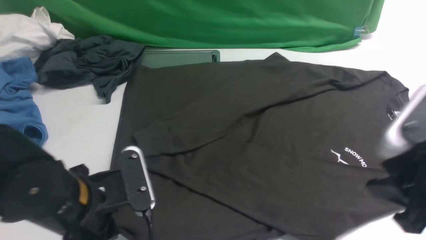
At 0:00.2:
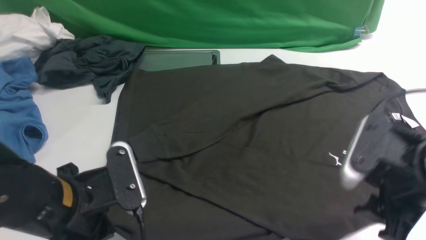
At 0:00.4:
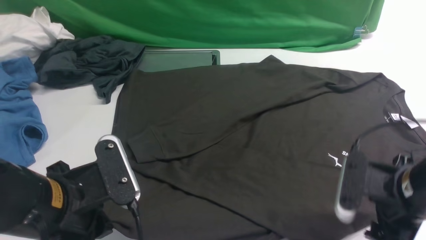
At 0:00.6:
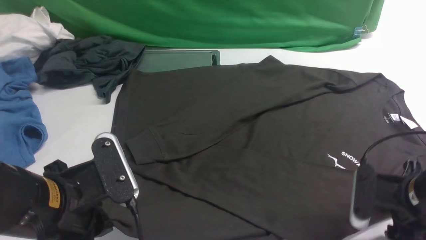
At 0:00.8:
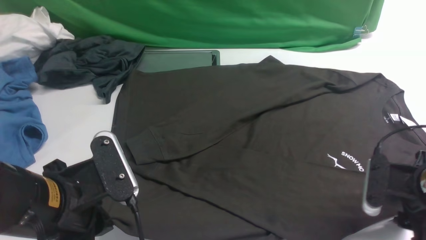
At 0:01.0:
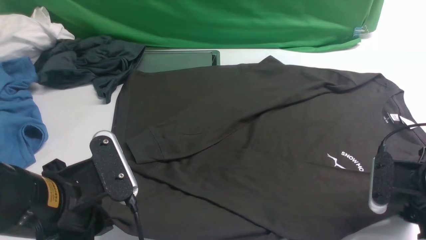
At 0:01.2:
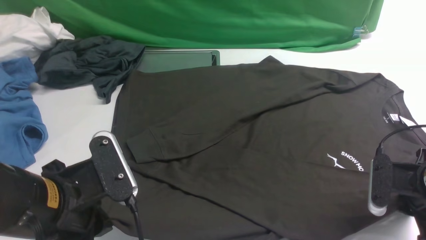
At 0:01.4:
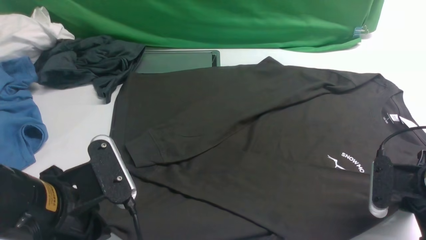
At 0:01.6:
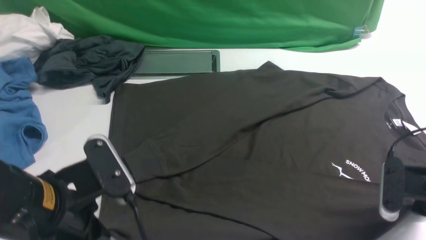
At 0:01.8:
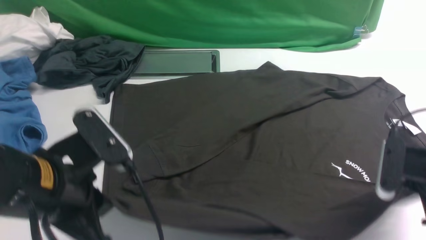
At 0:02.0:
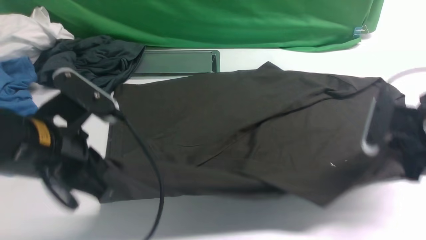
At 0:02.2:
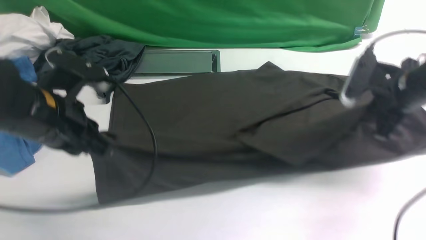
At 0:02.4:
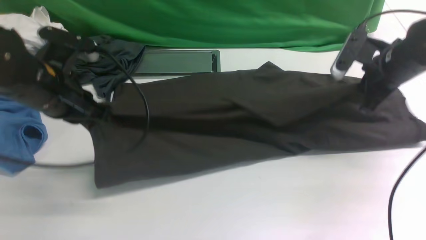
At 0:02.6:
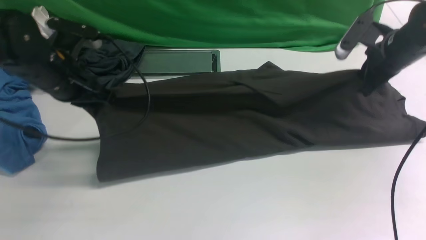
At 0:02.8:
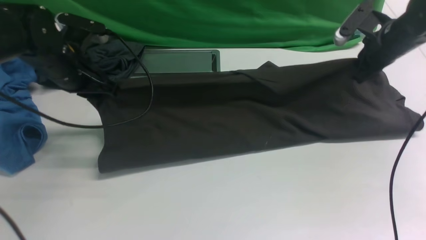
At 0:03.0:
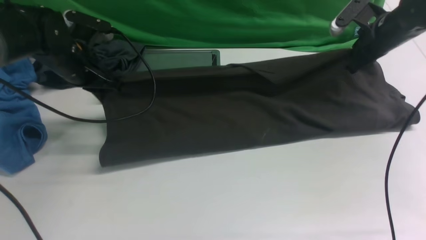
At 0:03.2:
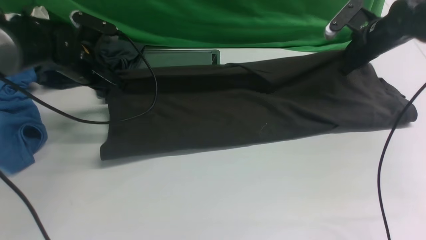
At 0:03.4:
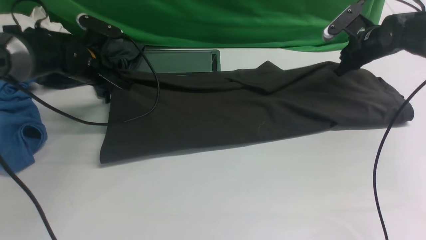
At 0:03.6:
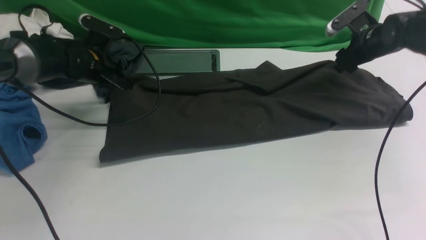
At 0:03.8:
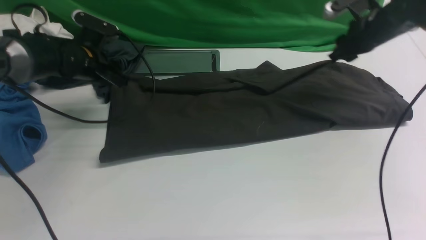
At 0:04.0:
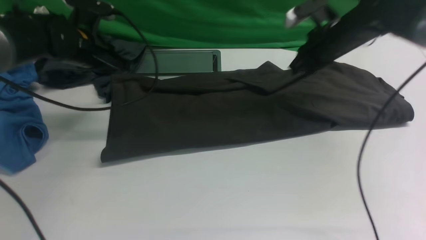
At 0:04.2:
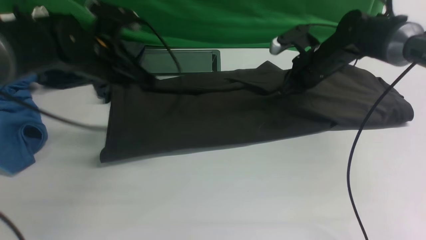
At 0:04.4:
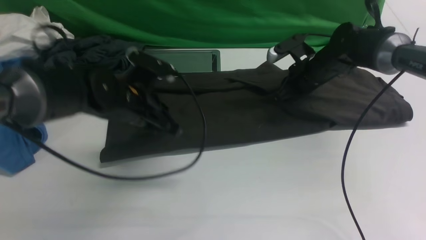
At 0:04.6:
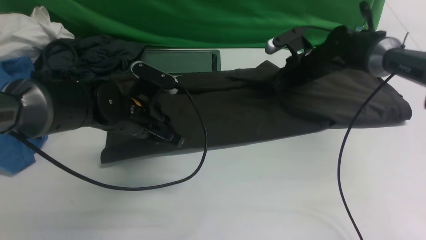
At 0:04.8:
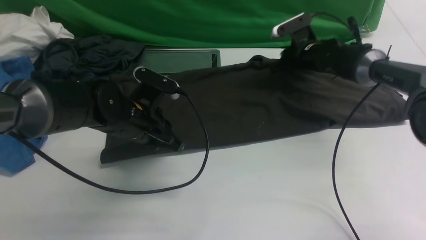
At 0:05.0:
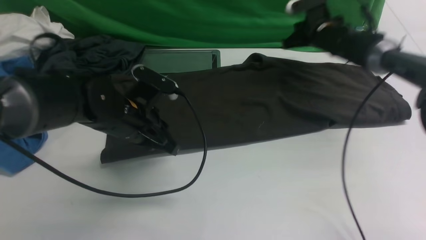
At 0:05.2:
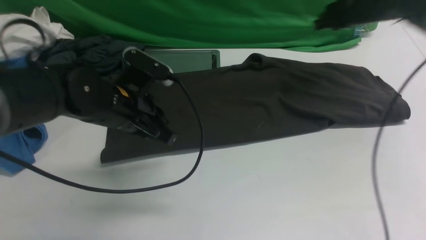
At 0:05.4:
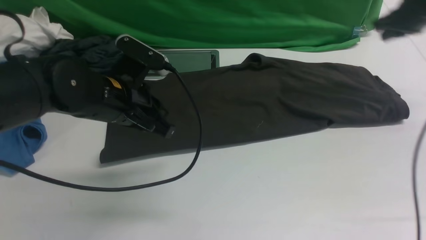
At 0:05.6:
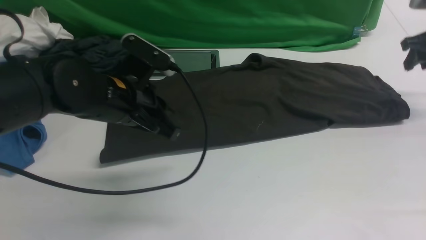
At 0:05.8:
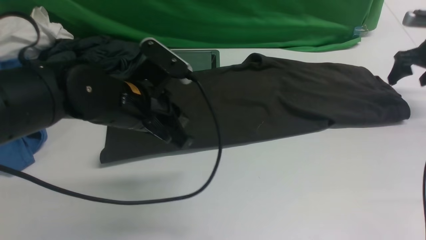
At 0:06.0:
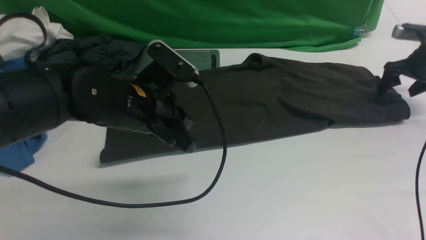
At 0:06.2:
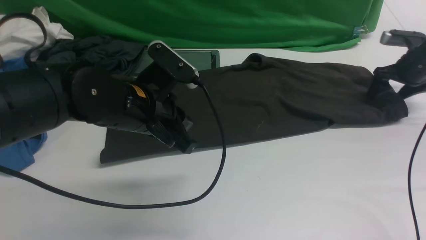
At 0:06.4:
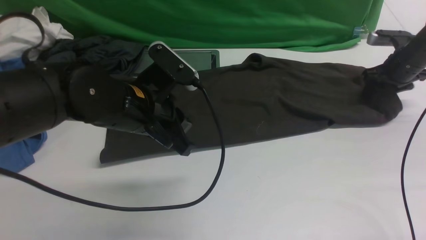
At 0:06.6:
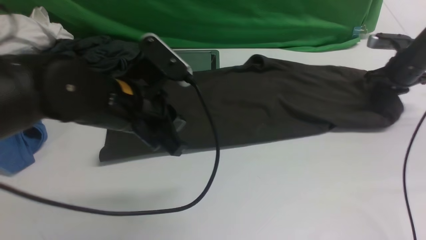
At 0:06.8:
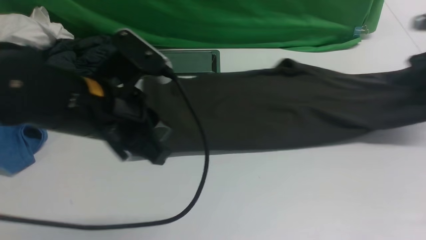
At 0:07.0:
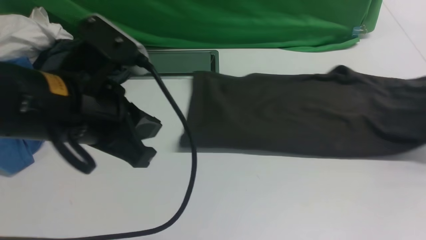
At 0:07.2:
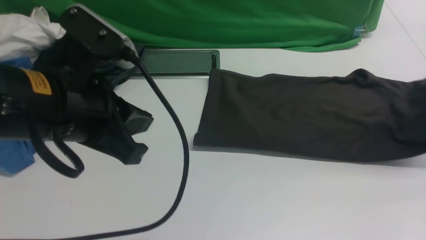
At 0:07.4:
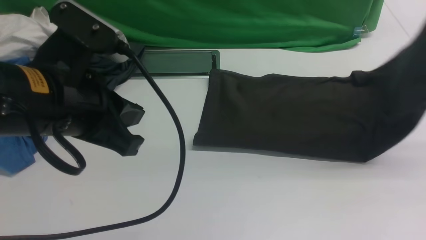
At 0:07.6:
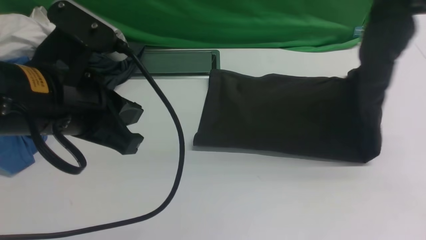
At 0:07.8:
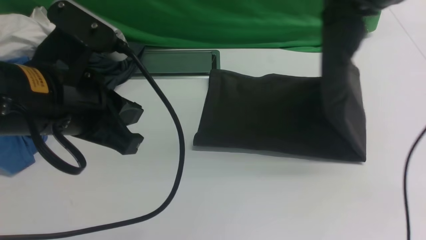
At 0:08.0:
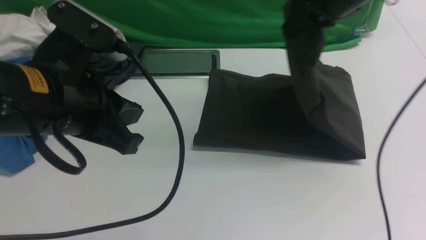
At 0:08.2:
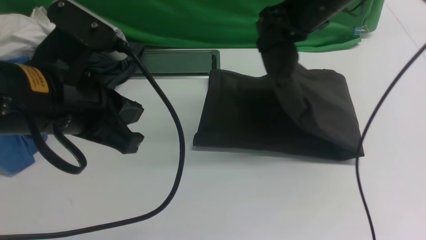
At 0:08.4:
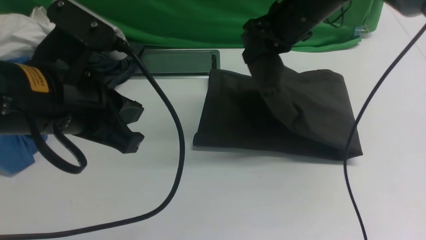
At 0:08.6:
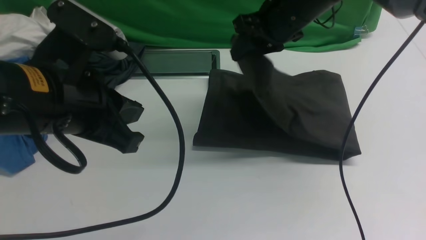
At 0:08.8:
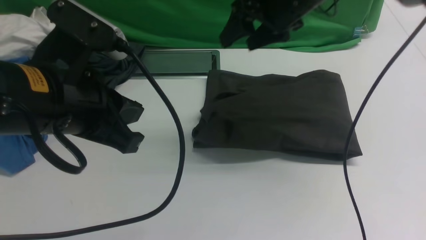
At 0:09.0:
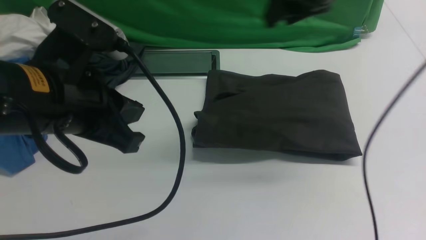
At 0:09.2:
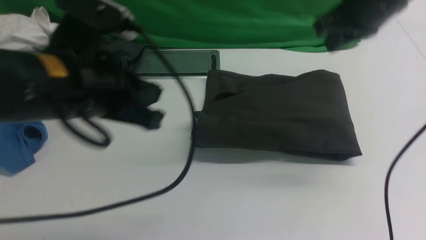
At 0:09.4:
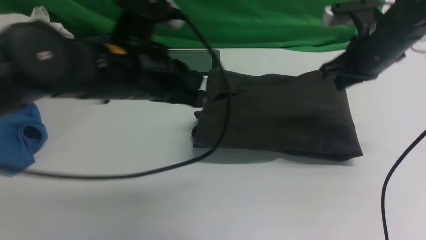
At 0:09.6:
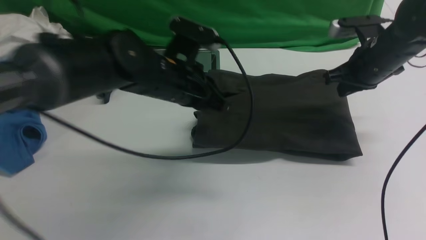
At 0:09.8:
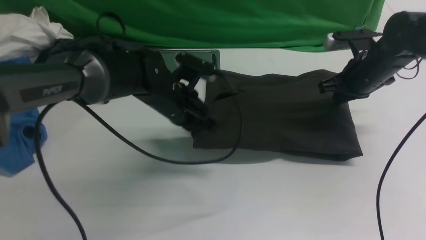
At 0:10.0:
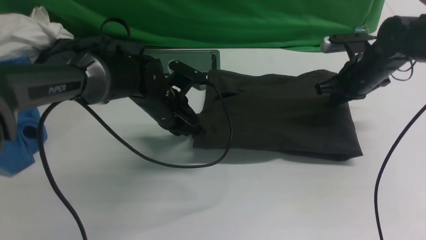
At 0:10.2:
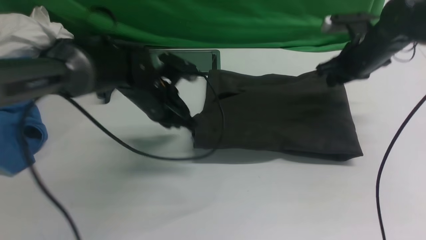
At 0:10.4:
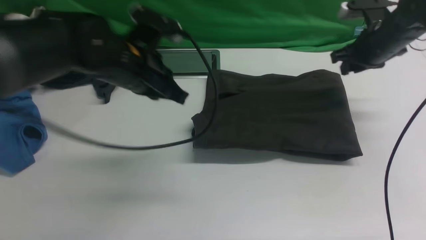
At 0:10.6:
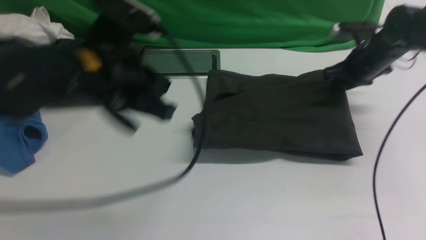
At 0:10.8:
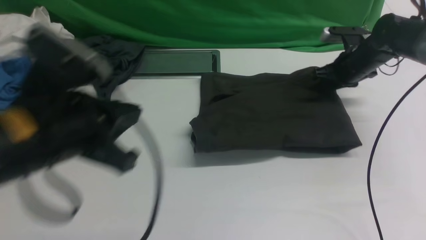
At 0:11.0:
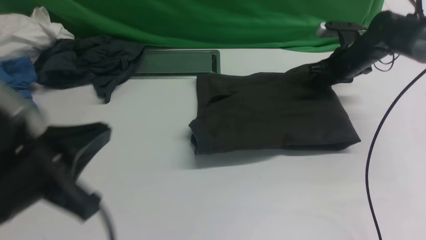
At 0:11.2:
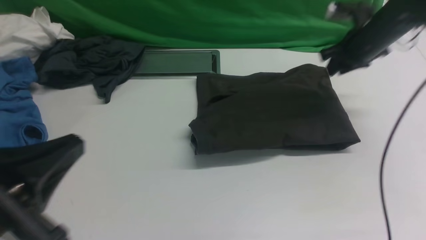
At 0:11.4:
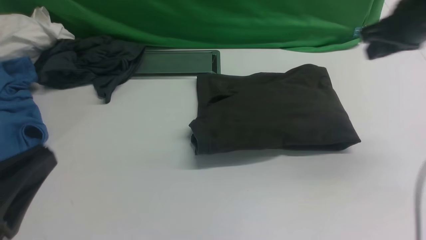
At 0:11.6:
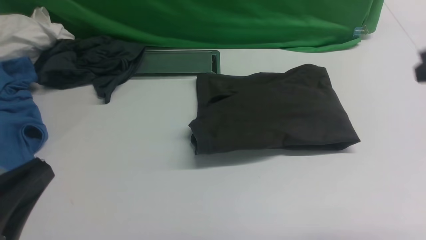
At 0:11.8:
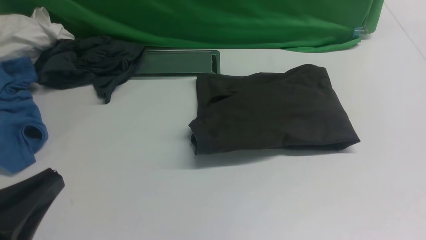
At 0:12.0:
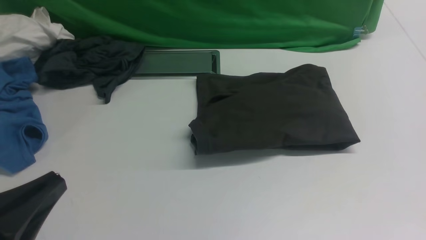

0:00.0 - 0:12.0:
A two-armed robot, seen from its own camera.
Step, 0:01.8 - 0:05.0: use both arms to drag the lower edge of the fabric forward and fold it over the upper edge.
Step, 0:05.4 - 0:06.6: use the right arm to clamp the right edge of the fabric.
Step, 0:06.8 - 0:08.8: use the right arm to drag the right edge of the fabric to the left and folds it over the left edge.
0:00.0 - 0:01.6: The right gripper moves downward, to the right and forward, about 15 cm, and closes up.
0:01.6 - 0:03.0: The grippers both shift forward by approximately 25 cm.
0:03.0 - 0:04.4: The right gripper heads to the left and downward, covering some 15 cm, and opens, then closes again, while the left gripper travels to the right and backward by roughly 10 cm, and opens, then closes once more.
0:04.4 - 0:06.0: The right gripper shifts approximately 20 cm to the right, and opens up. The left gripper travels backward by some 5 cm.
0:06.0 - 0:07.6: The left gripper is displaced upward and backward by some 15 cm; the right gripper goes about 25 cm upward, to the left and backward, and closes.
0:07.6 - 0:09.0: The right gripper goes some 10 cm to the left, and opens its fingers.
0:09.0 - 0:10.4: The right gripper moves downward, to the right and forward, about 20 cm, and closes, then reopens. Meanwhile the left gripper is displaced forward and downward by roughly 15 cm.
0:10.4 - 0:12.0: Both grippers move backward, some 30 cm. The right gripper closes.

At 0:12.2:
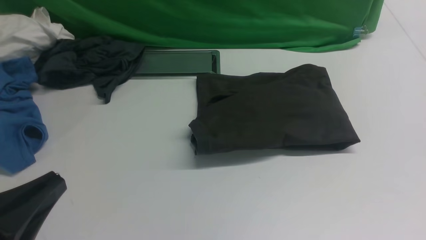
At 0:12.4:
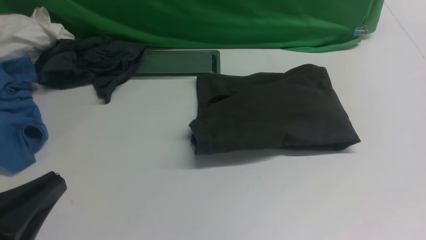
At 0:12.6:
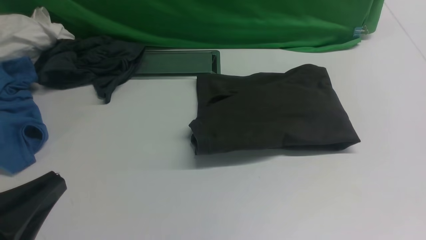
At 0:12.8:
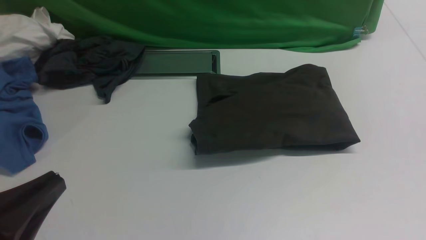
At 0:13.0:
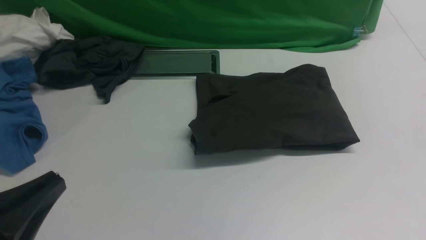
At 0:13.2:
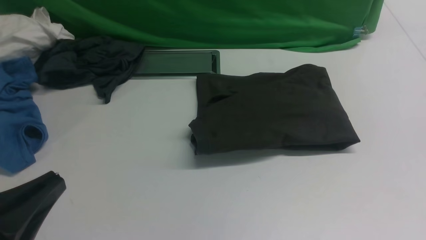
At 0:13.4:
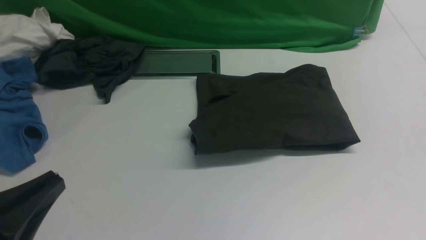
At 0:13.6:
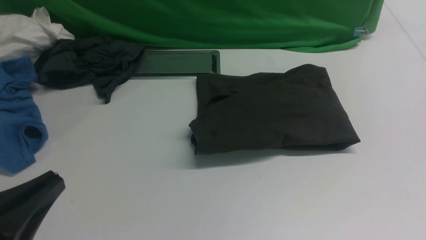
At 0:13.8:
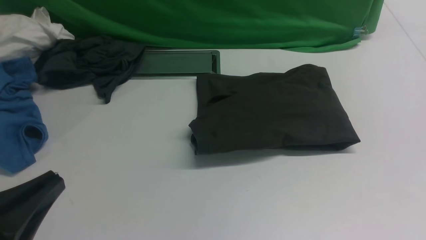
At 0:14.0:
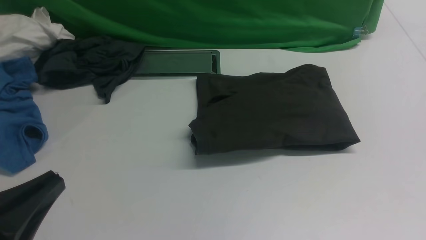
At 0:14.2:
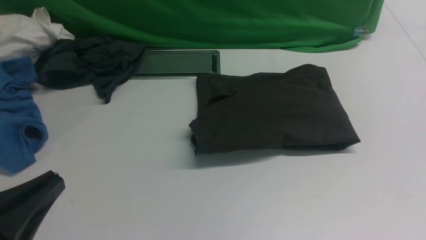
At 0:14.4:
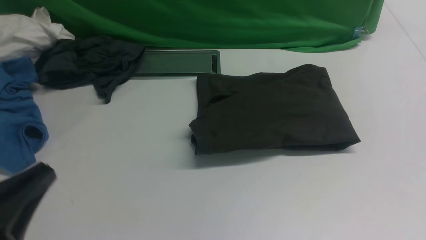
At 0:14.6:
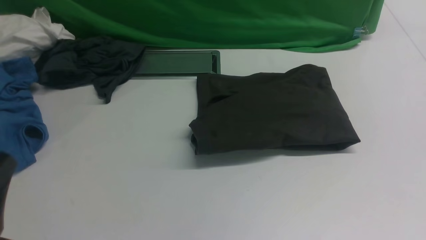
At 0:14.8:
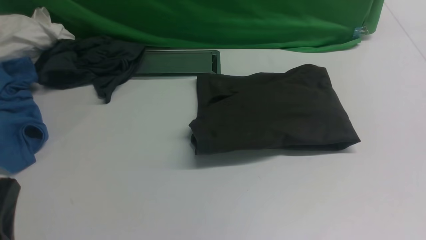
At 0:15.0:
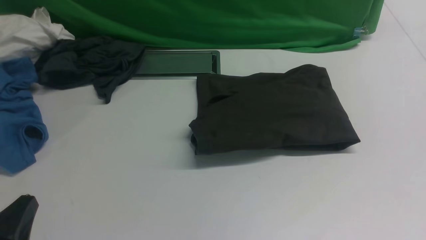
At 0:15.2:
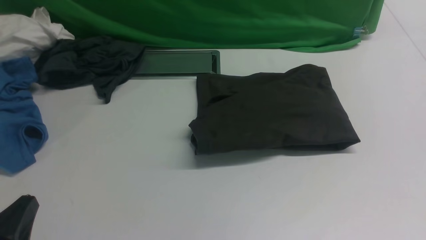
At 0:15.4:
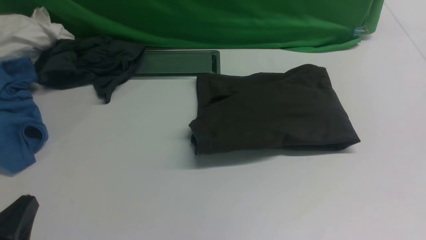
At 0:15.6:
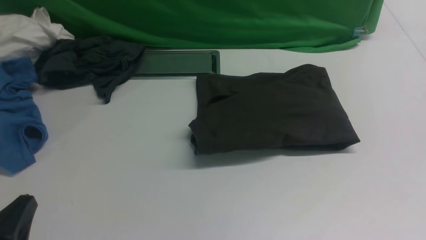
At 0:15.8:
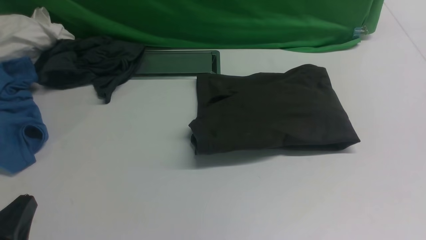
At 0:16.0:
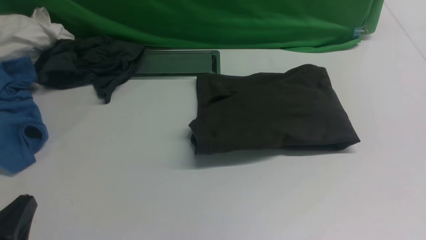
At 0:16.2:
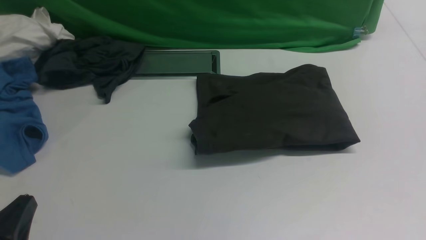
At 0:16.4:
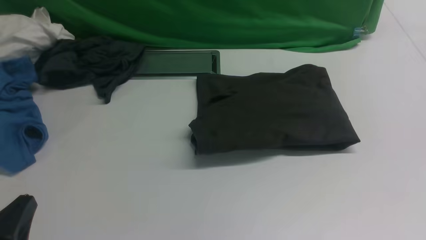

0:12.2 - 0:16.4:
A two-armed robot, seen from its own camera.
0:13.6 - 0:15.0: The left gripper is displaced downward by approximately 10 cm.
0:15.0 - 0:16.4: The two grippers keep their place.
